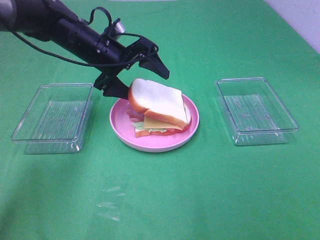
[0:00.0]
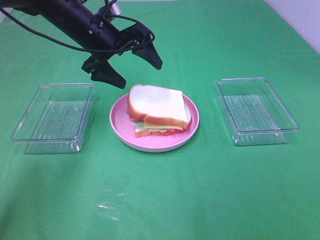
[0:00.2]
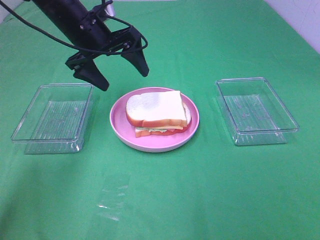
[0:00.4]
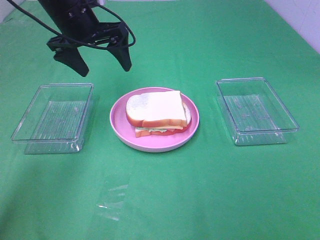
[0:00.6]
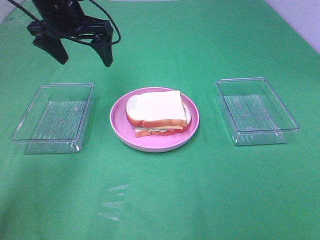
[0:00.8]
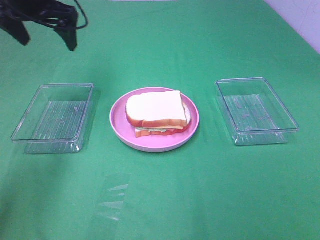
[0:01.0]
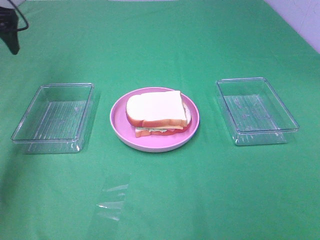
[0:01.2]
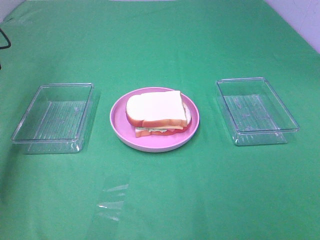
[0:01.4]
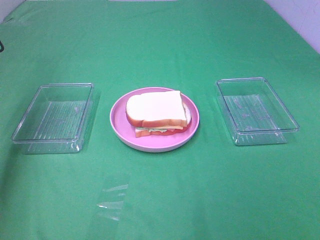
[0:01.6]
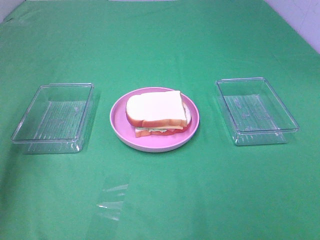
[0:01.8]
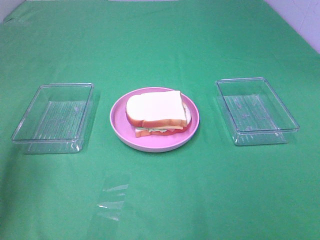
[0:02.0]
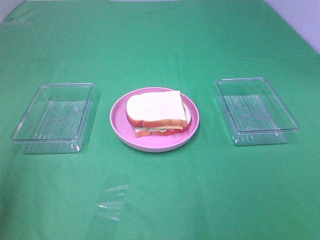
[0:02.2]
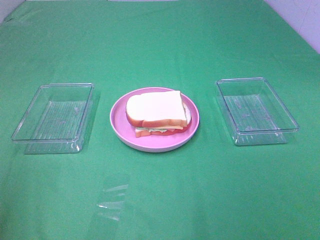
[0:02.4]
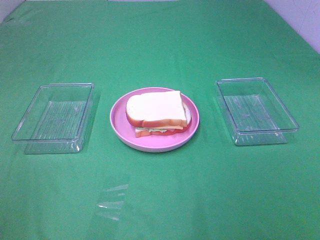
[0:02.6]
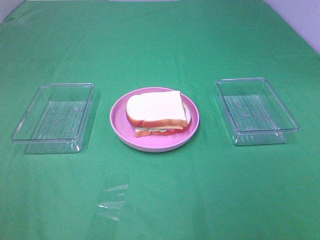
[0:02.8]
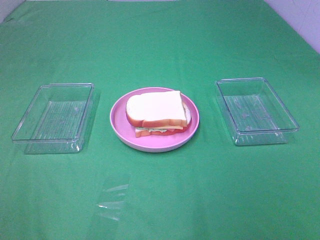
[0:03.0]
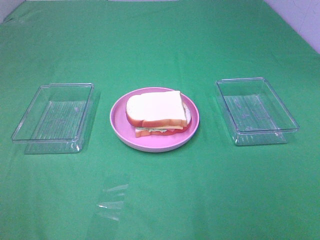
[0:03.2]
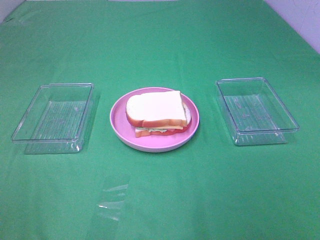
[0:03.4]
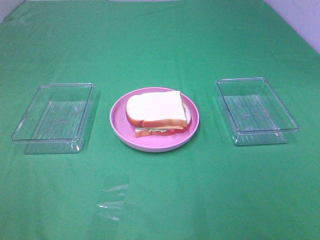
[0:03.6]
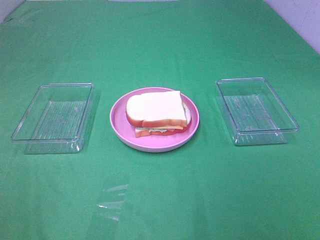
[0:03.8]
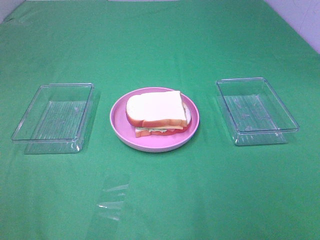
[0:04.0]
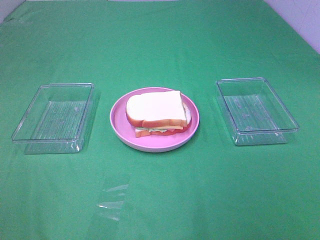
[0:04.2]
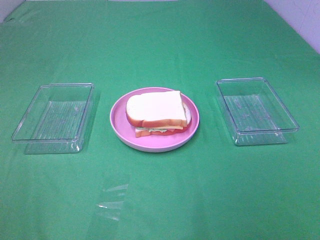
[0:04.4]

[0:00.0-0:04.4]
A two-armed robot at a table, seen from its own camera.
Task of the whole recording: Make sandwiches.
0:00.0 to 0:01.4: The left gripper goes roughly 25 cm to the left.
0:01.4 to 0:03.0: The left gripper is displaced backward by approximately 40 cm.
